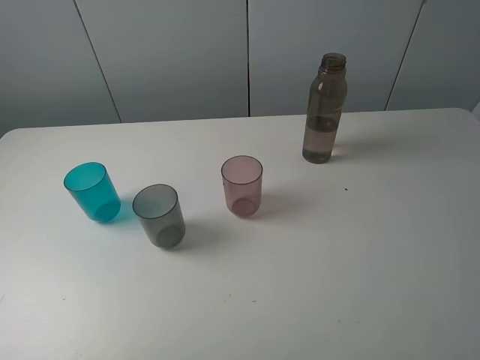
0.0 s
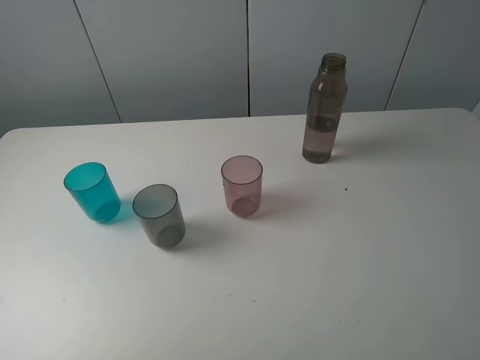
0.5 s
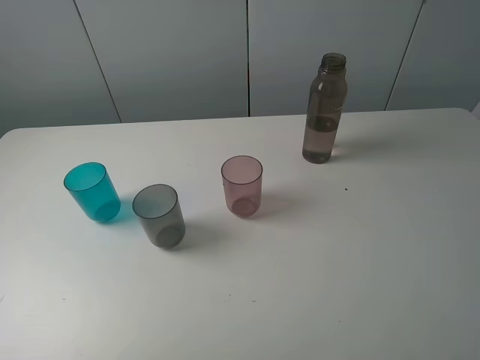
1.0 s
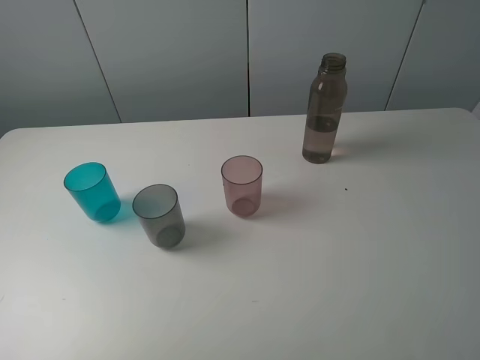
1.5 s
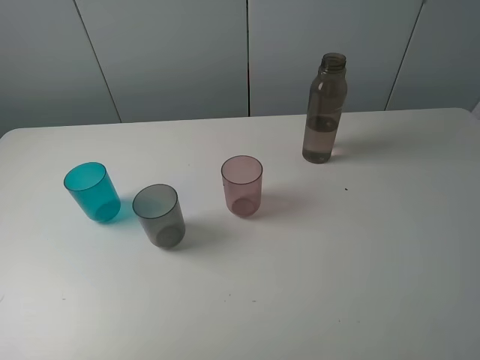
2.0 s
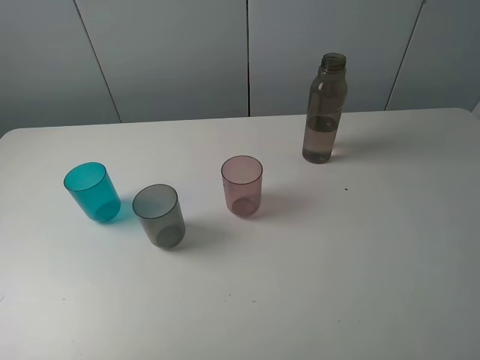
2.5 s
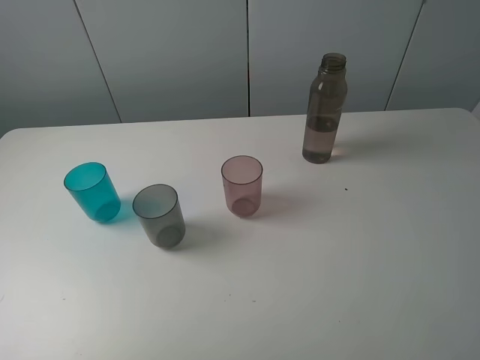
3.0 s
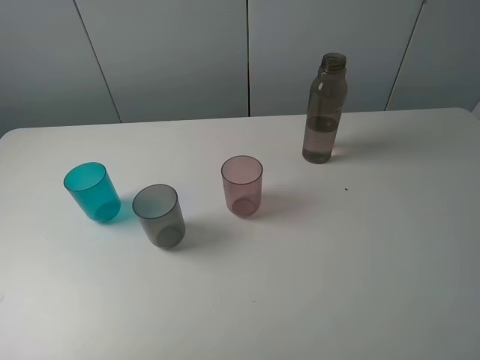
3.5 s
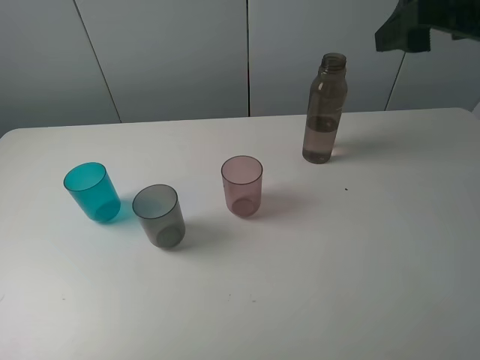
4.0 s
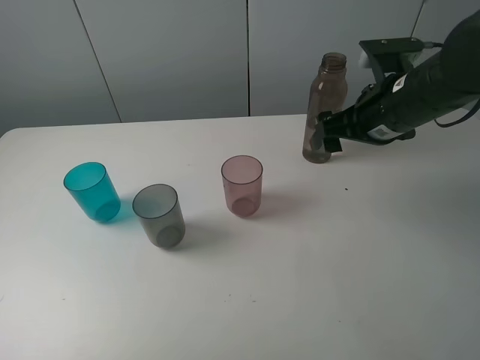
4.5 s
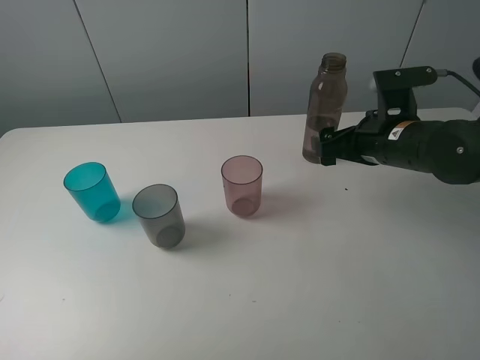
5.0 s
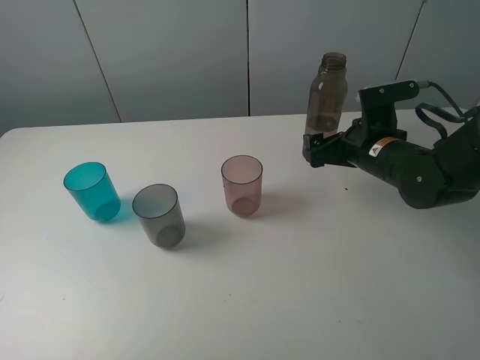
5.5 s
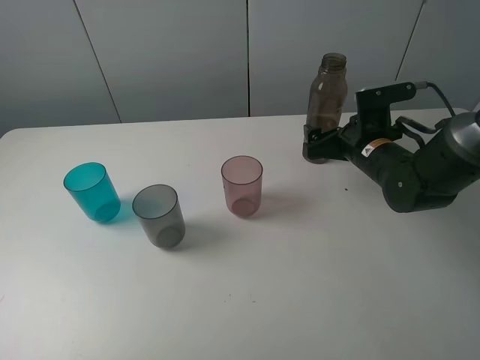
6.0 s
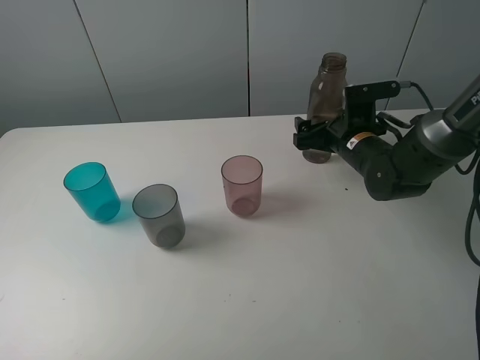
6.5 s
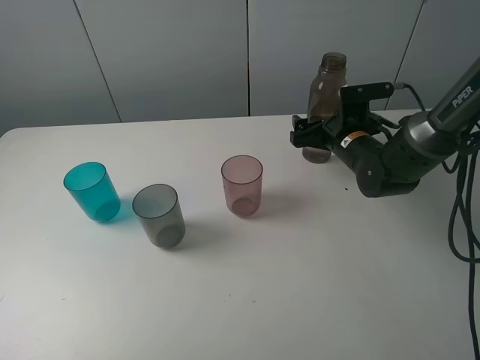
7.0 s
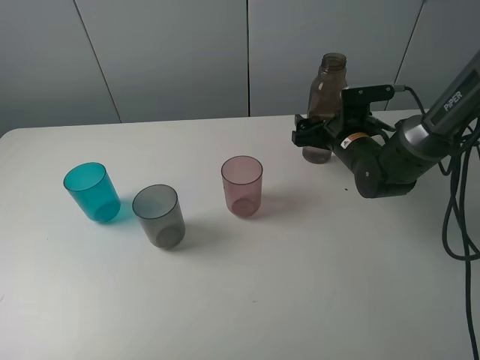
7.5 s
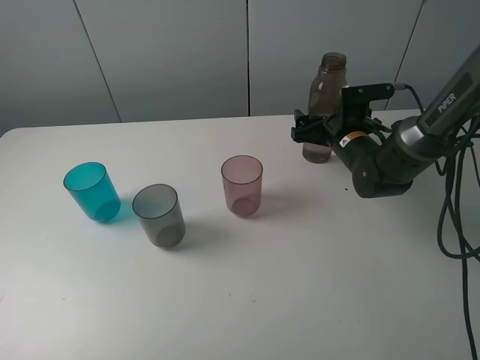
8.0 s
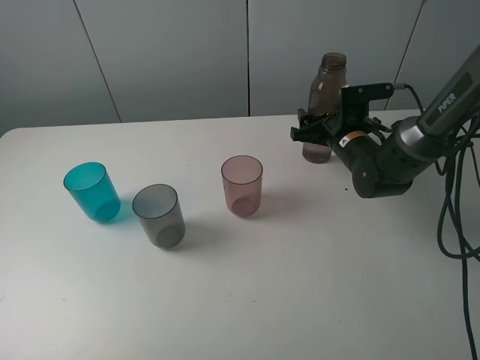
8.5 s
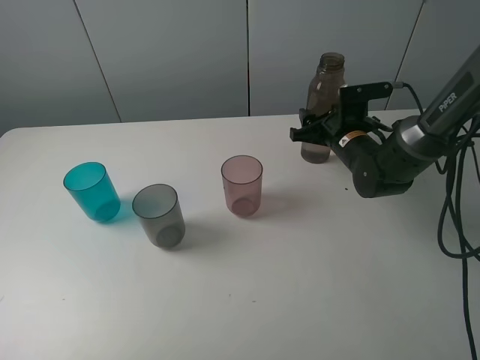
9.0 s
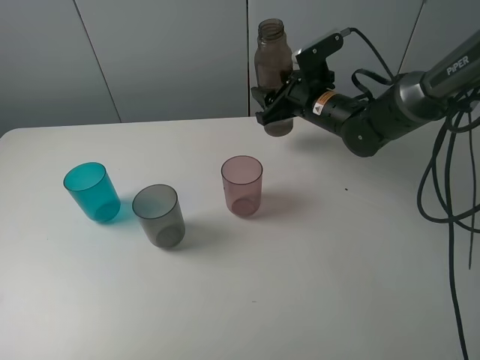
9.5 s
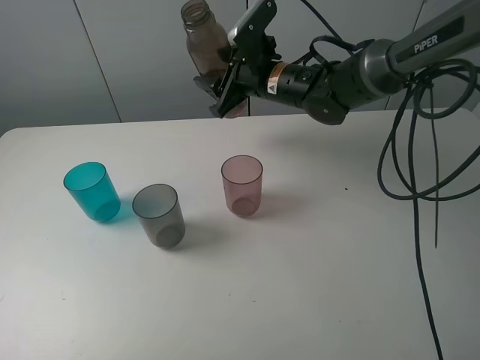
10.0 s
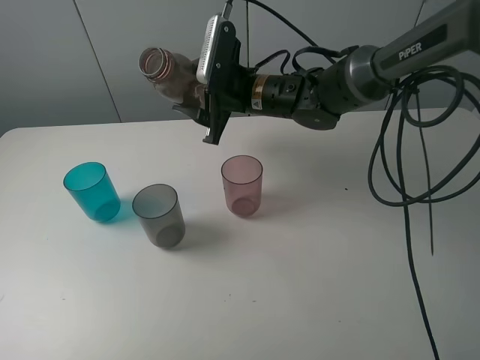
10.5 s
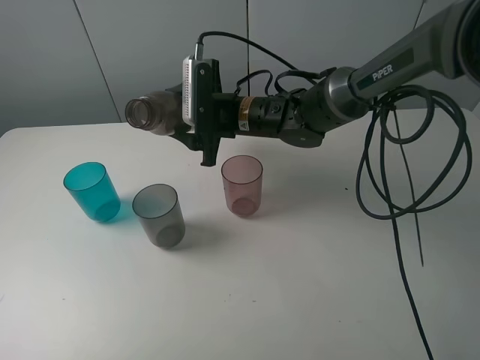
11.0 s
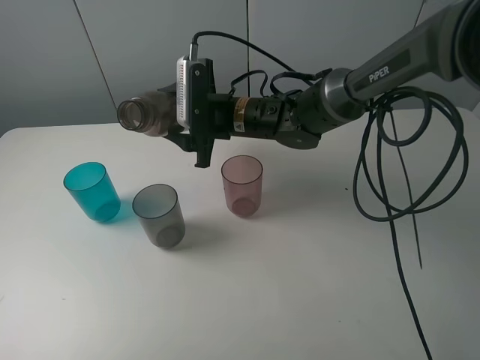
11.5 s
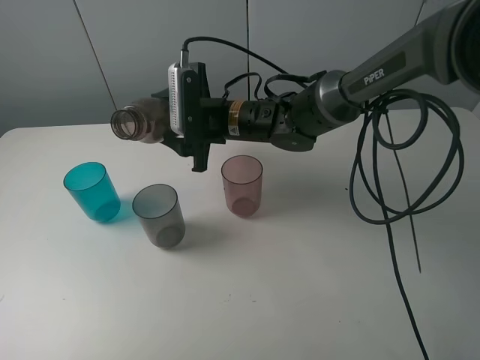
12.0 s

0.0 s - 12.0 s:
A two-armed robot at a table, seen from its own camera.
Task of the whole recording: pick up the bottle filled with water and pour water into the middle cup of the three cups.
Step, 0.0 s - 9.0 s: Grasp the brown bottle with the right gripper.
0.0 s - 2.0 s: Neither gripper changes place.
2.0 s - 4.0 s: The right gripper is displaced forward by about 25 cm.
4.0 s - 6.0 s: The right gripper is displaced downward by approximately 20 cm.
6.0 s - 8.0 s: The right gripper travels forward by approximately 5 cm.
8.0 s - 10.0 s: The right gripper moves to the left and upward, about 15 cm, and closes.
10.0 s - 12.0 s: The right gripper travels to the left by approximately 5 cm.

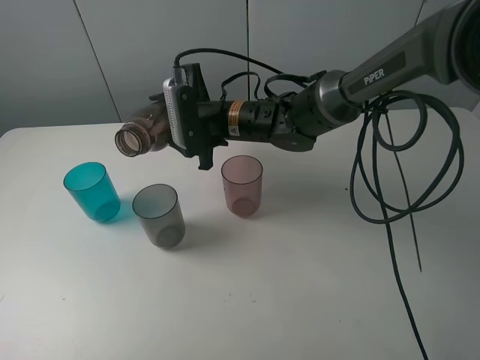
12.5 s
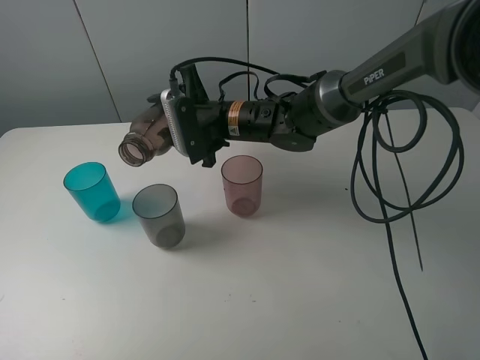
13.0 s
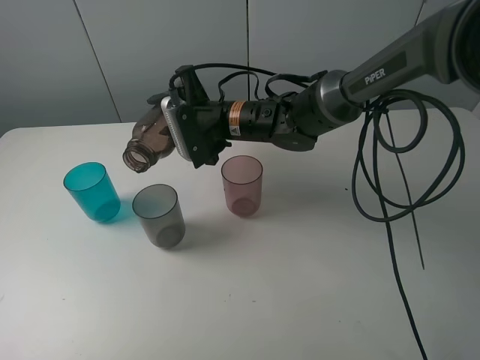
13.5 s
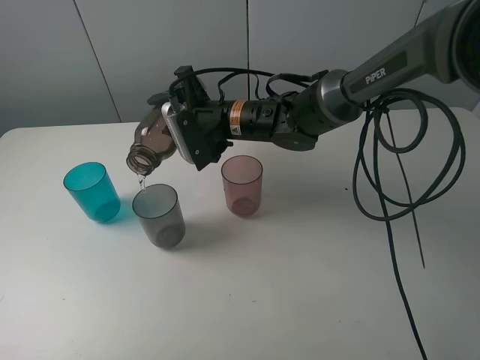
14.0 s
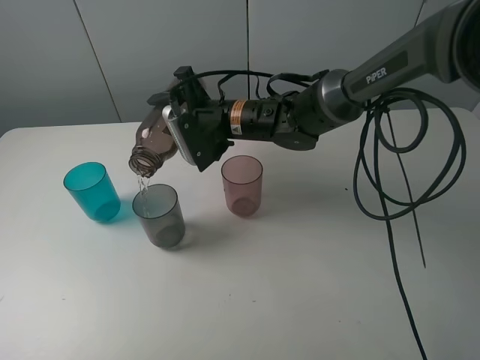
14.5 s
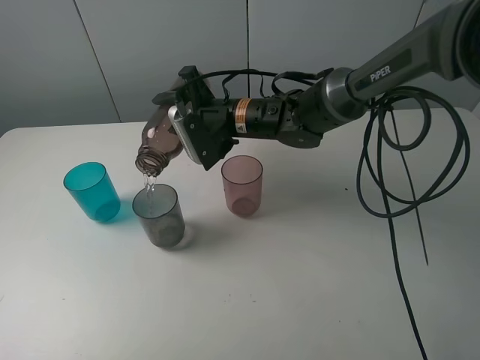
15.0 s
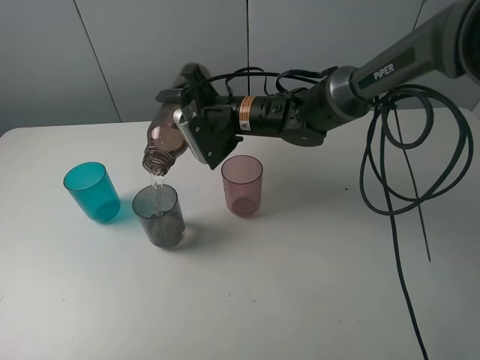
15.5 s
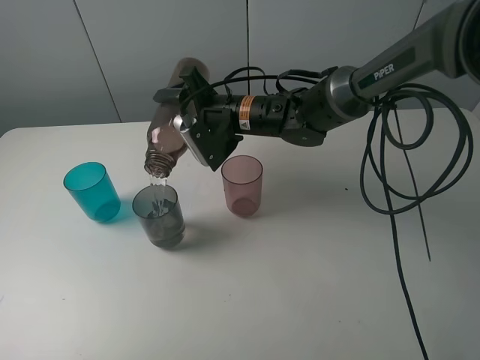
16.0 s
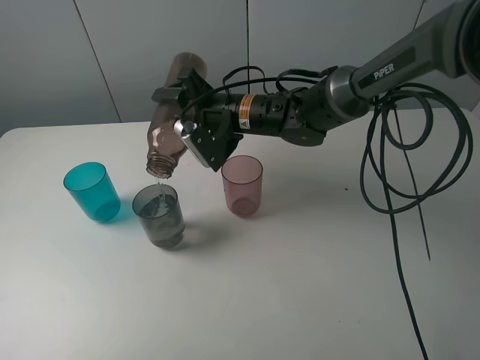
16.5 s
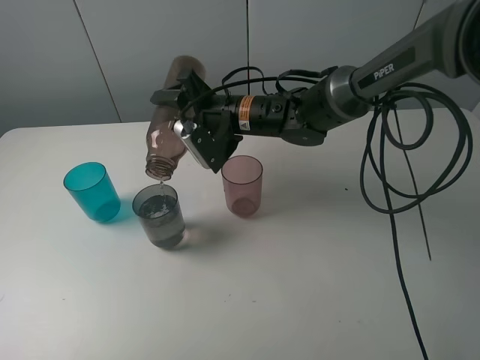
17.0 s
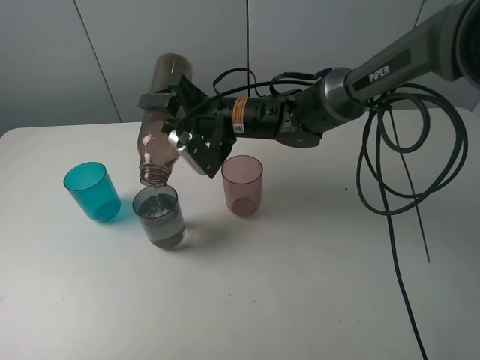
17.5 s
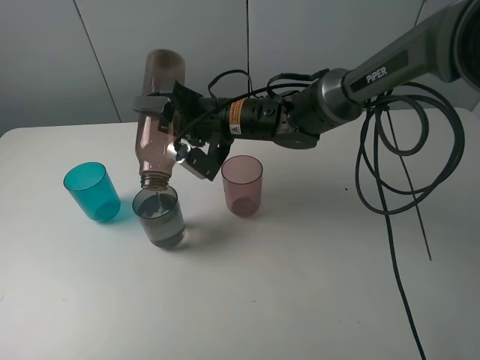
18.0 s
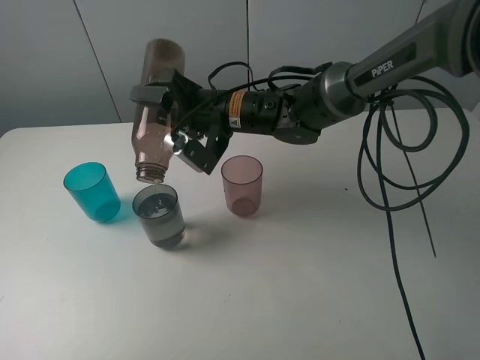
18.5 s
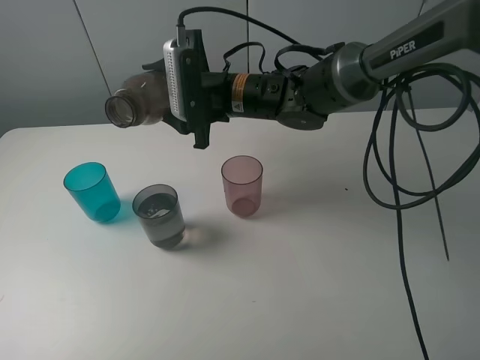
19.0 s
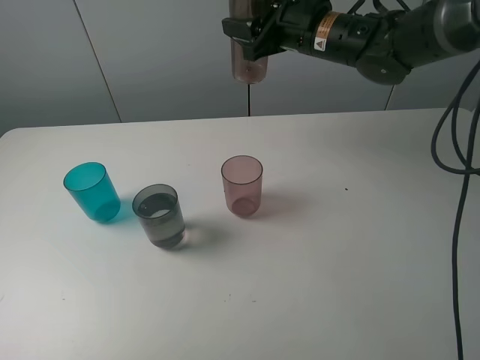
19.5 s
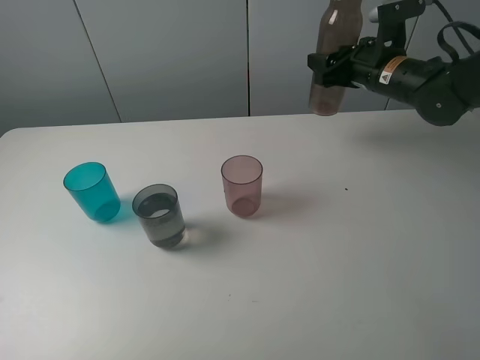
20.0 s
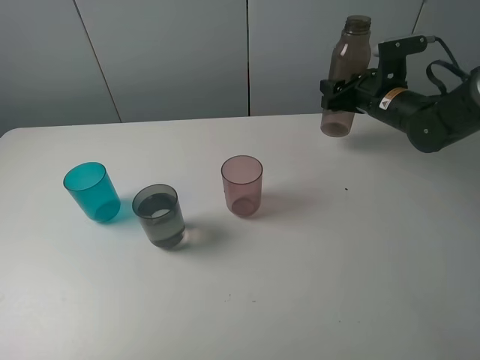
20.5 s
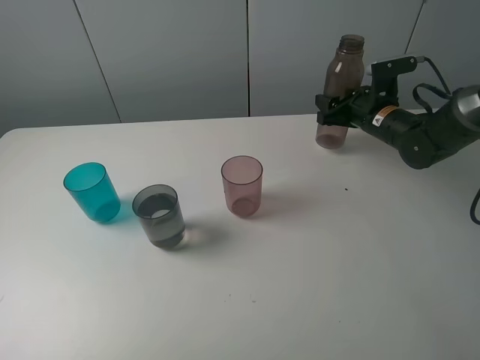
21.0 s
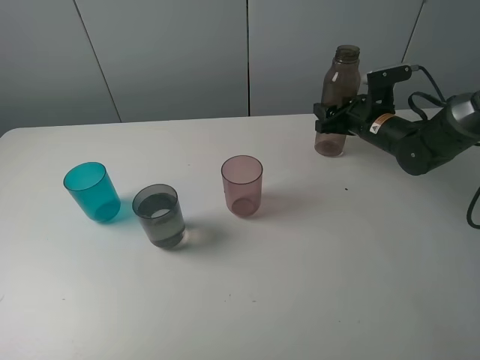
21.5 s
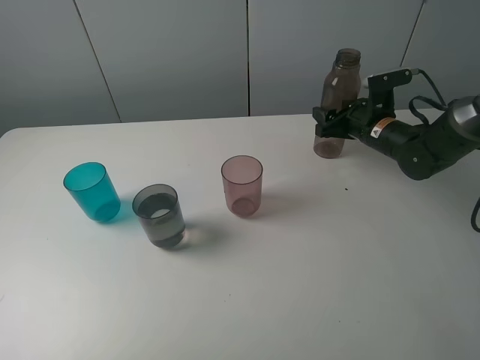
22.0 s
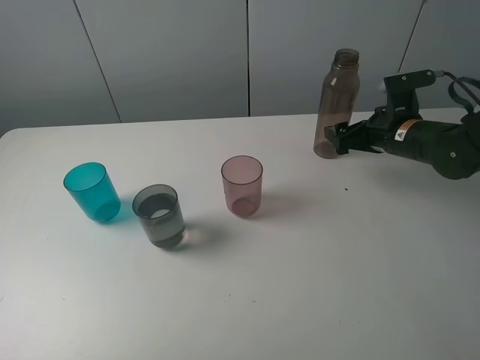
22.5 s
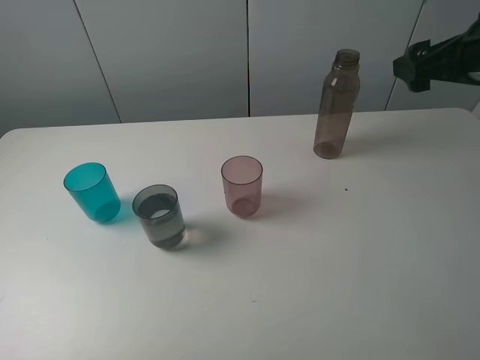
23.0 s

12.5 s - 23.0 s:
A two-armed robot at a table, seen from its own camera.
Task of the whole recording: pick up the bottle filled with water and pour water into the middle cup of the three cups.
Step, 14.0 s - 22.5 s: Place the brown bottle with the right gripper.
14.5 s - 16.5 s: The grippers make only small movements.
19.0 s - 21.0 s: The right gripper goes about 25 cm to the right.
21.0 s - 23.0 s: The right gripper goes approximately 25 cm upward and backward, and opens.

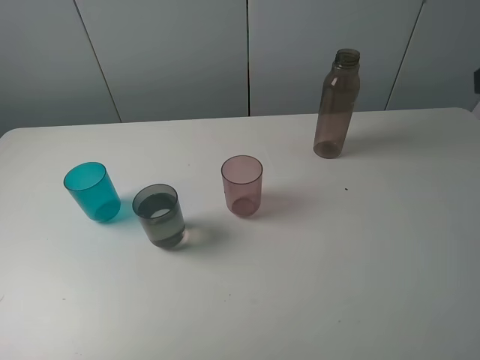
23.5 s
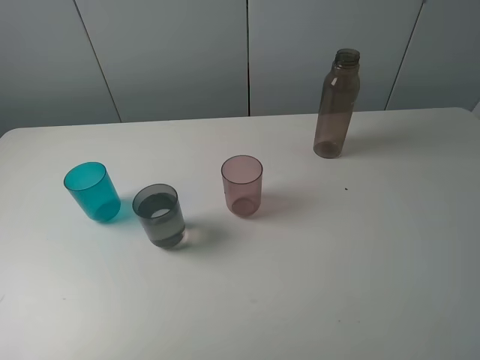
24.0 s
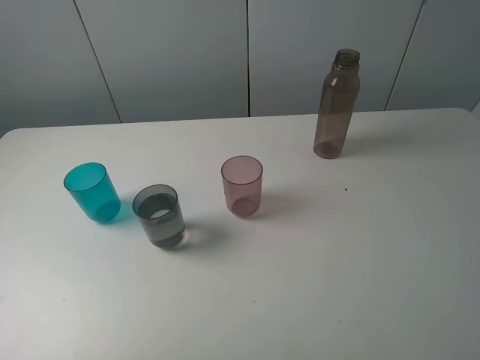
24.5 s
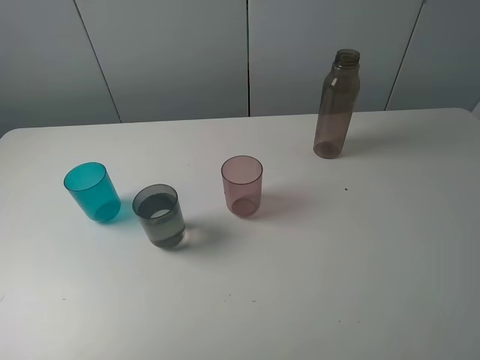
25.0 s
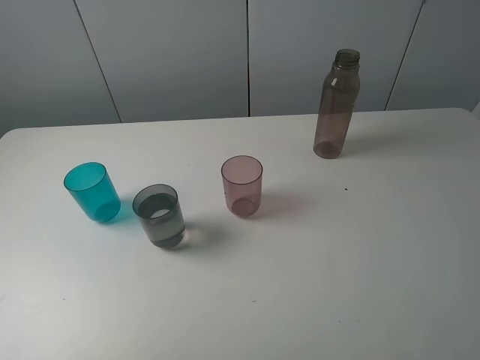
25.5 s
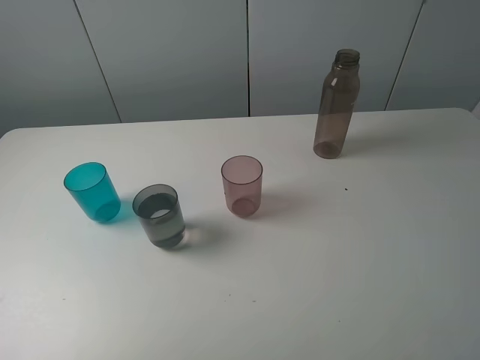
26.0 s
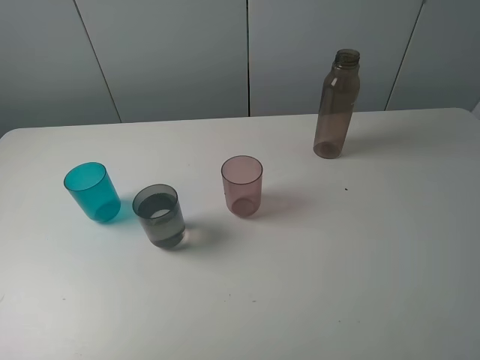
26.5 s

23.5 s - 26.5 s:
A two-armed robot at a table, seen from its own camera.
Task of the whole recording: pick up the bottle filled with water and pour water into the middle cup of the three cups.
25.0 s - 26.5 s: The two grippers keep their place.
